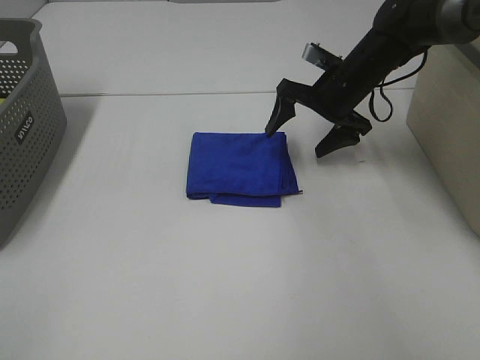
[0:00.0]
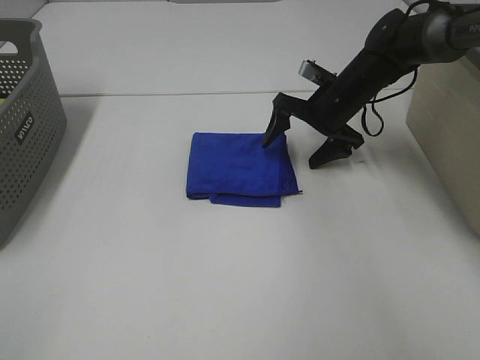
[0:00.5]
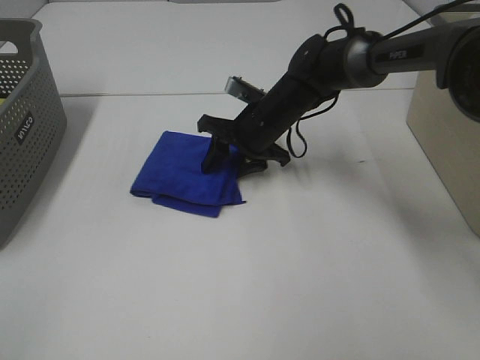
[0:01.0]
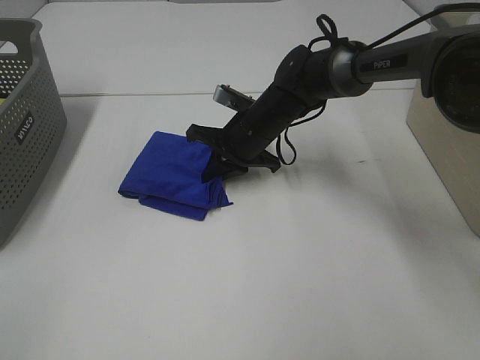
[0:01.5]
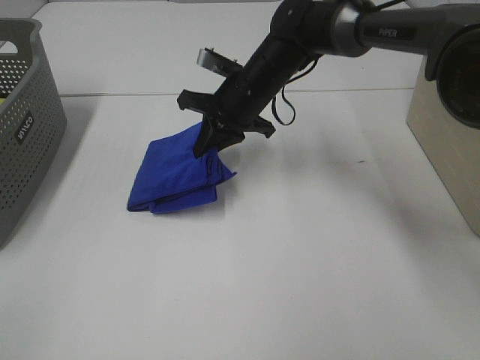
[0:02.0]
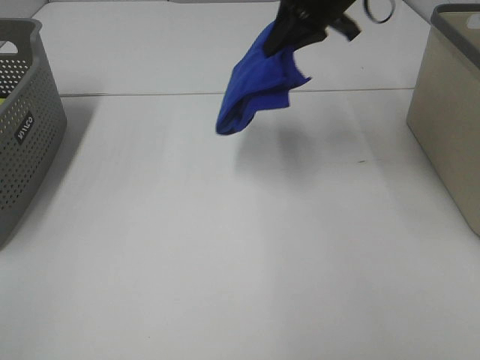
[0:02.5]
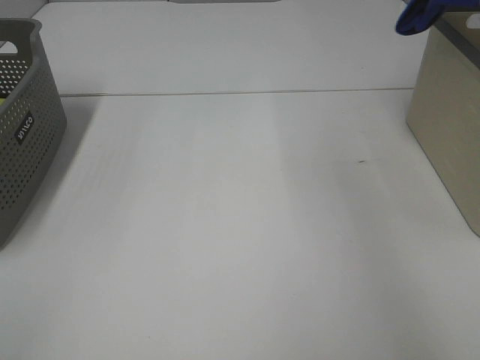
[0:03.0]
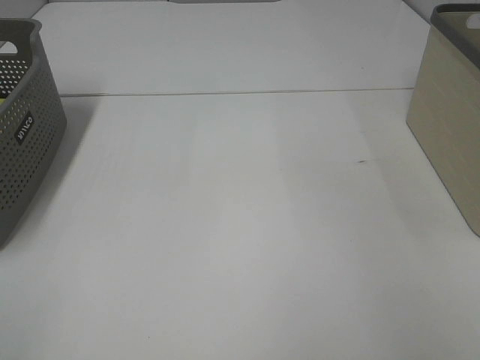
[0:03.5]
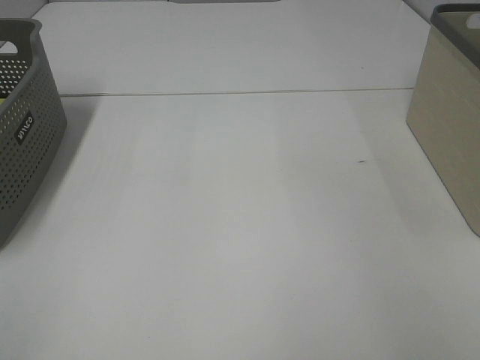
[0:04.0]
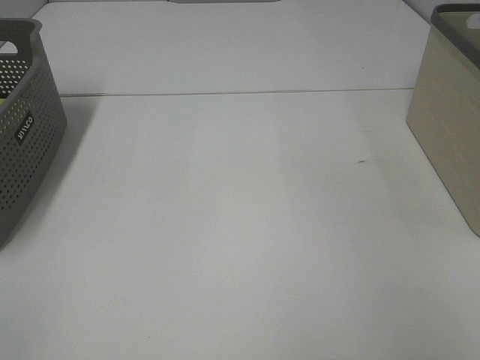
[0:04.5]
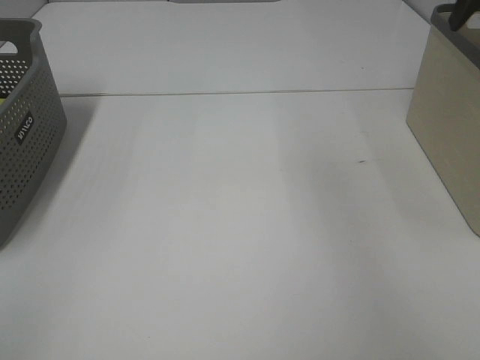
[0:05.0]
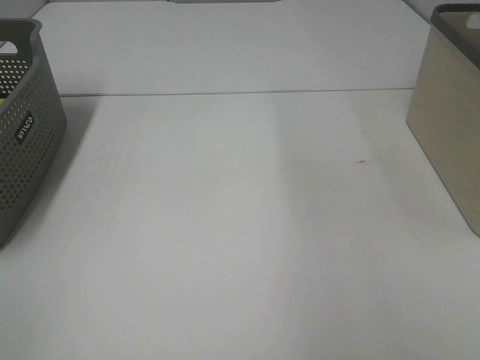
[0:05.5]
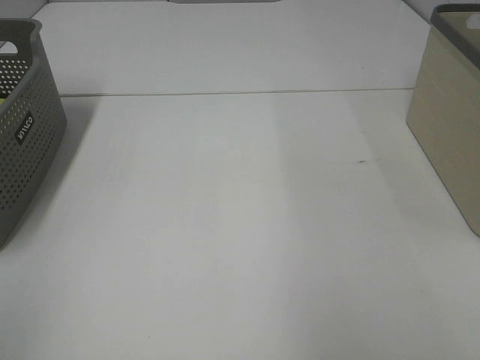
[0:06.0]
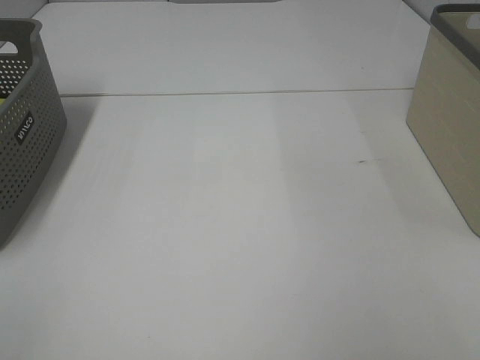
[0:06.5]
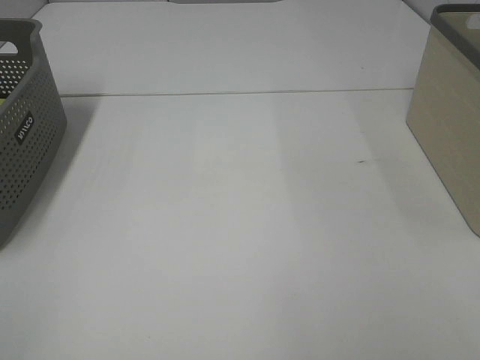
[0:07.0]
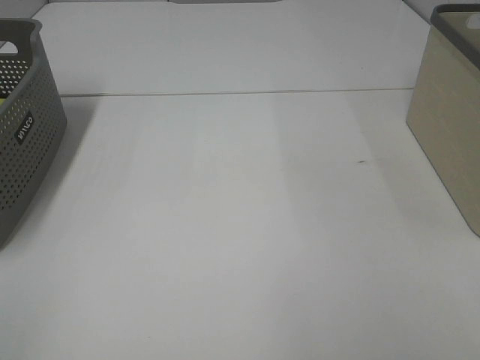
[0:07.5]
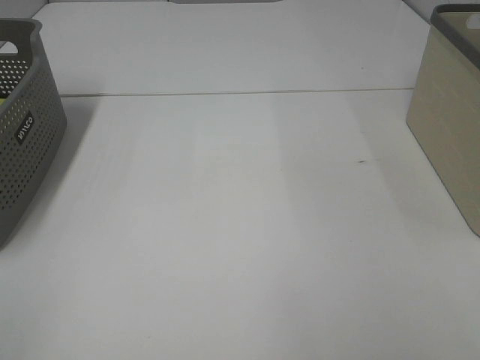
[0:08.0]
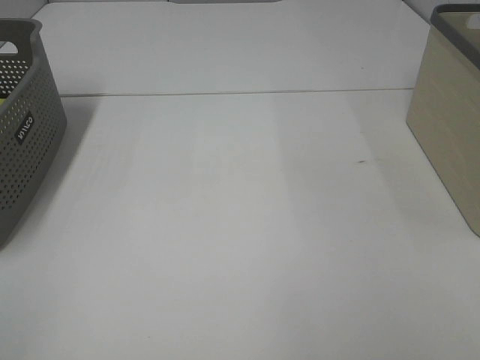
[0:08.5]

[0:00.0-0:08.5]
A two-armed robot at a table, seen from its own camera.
Step, 0:01.5 to 0:04.5: Right hand: place the blue towel in right basket.
0:00.0 to 0:02.0: The right gripper travels to the left by roughly 15 cm, and closes.
0:02.0 to 0:04.0: The right gripper moves to the right and upward, roughly 50 cm.

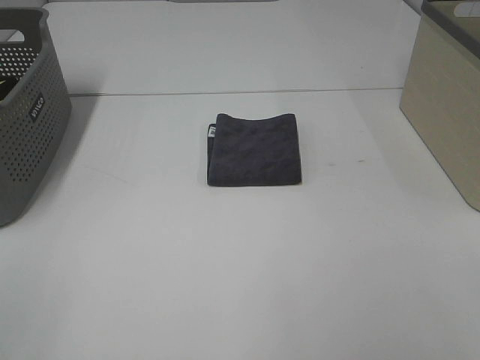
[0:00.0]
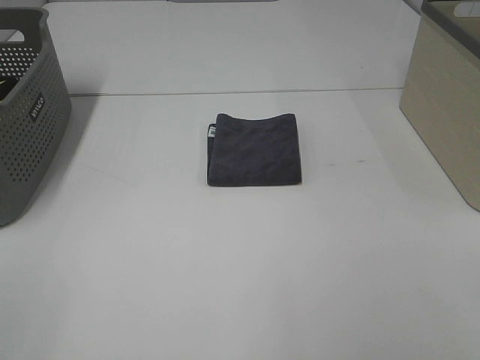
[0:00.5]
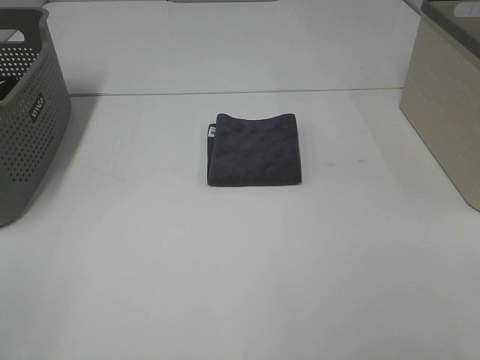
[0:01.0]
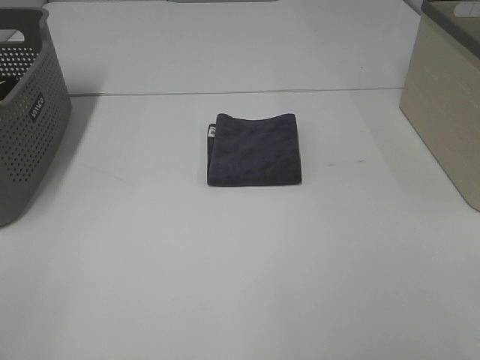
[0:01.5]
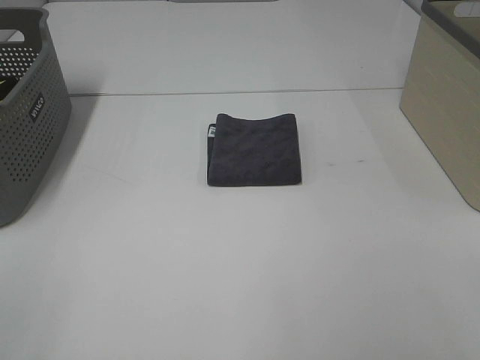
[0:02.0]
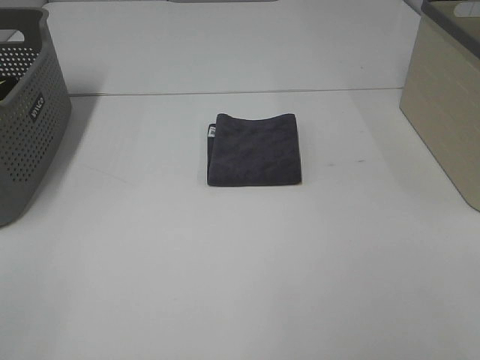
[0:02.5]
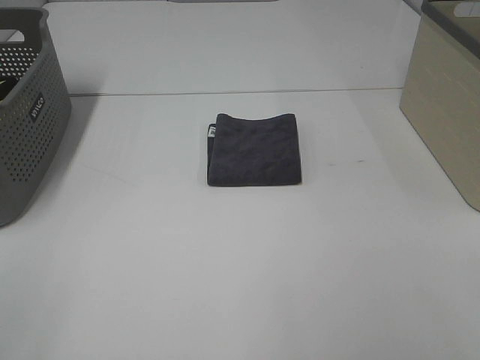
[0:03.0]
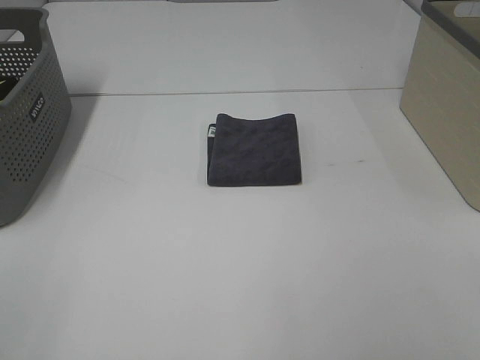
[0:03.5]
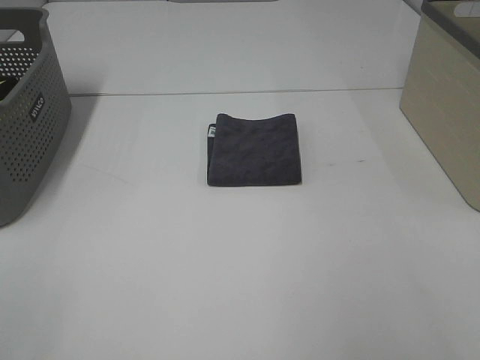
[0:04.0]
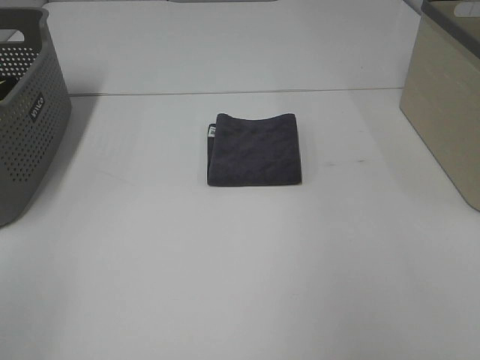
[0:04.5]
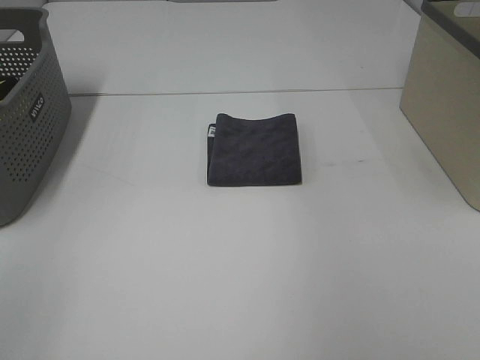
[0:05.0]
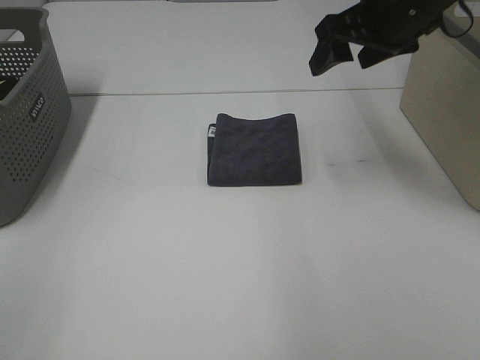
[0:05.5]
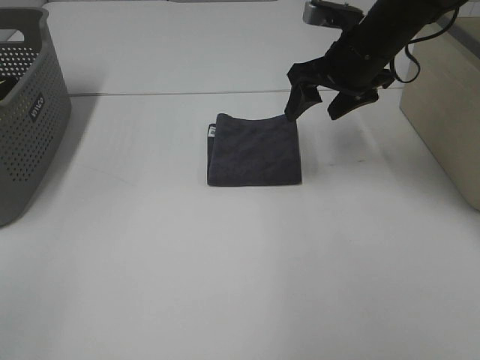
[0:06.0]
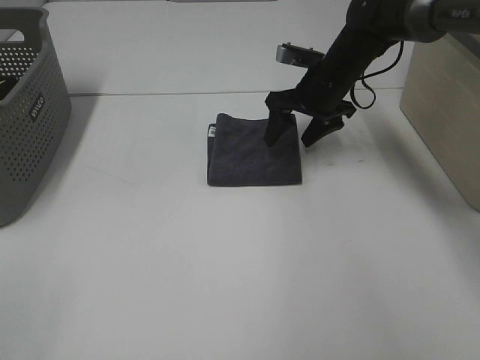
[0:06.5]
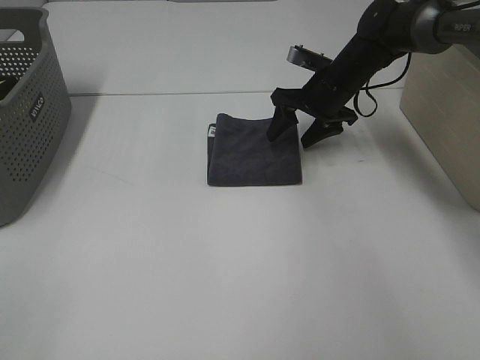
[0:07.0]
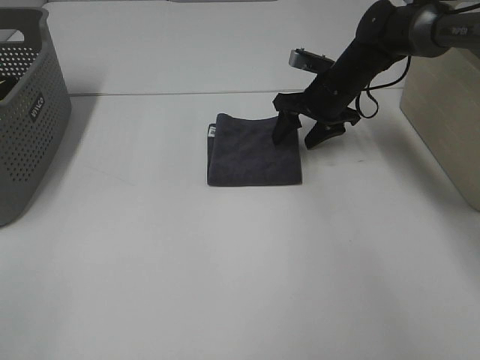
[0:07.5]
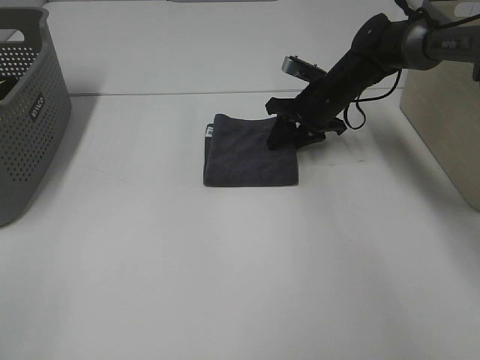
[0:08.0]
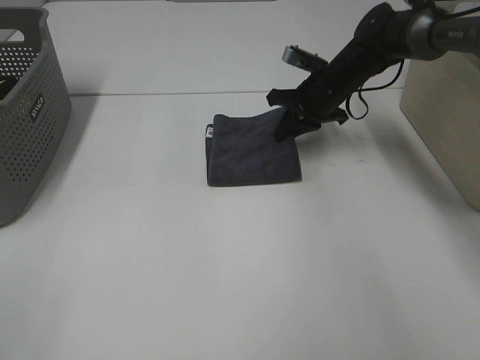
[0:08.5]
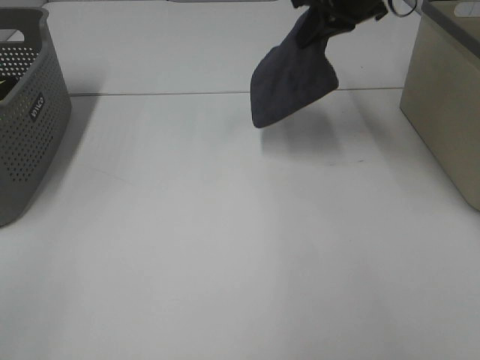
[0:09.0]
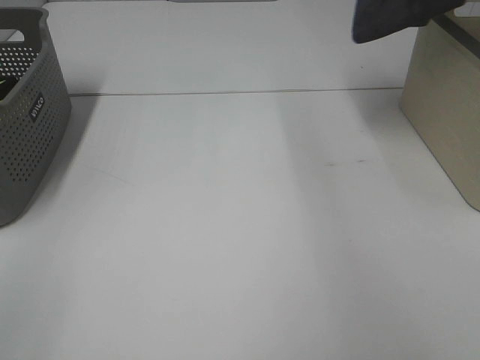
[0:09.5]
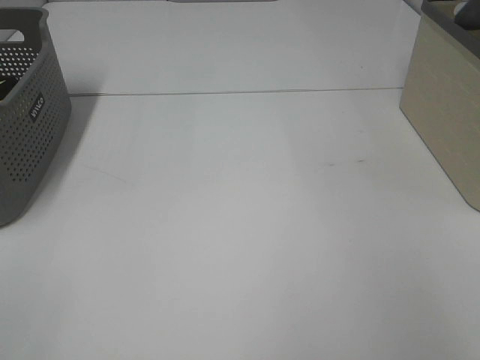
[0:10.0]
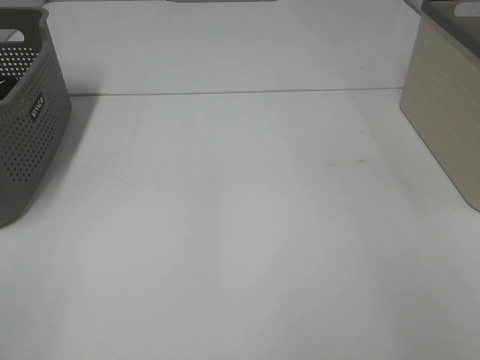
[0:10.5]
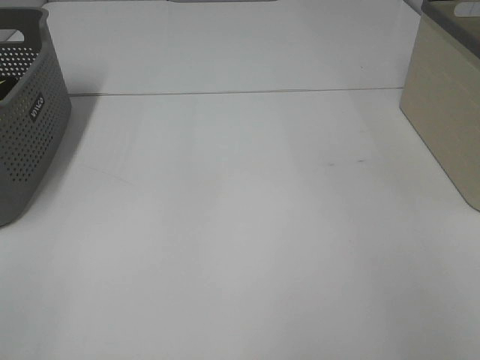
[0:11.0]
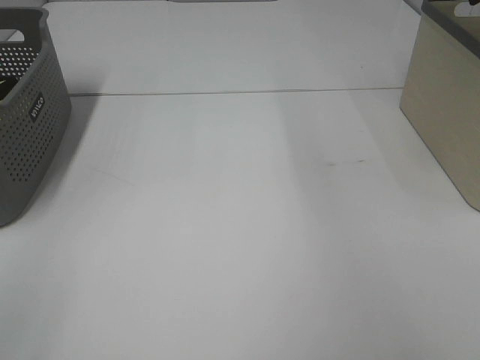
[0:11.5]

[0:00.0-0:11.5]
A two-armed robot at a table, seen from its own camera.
Step, 0:00.0 to 0:08.0: Right hand: grab the folded grey towel.
Step, 0:08.5 to 0:10.5: Right hand: place the grey towel in right basket.
0:00.0 to 0:02.0: The two grippers keep their place.
0:04.0 to 0:06.0: The right gripper shifts some 35 cm forward.
0:06.0 to 0:07.5: The right gripper heads downward and forward, covering some 10 cm.
0:07.5 to 0:09.5: The right gripper shifts roughly 30 cm upward and to the right, and closes its fingers.
0:09.5 to 0:11.5: The right gripper goes to the right and returns, roughly 15 cm each way, and opens its fingers.

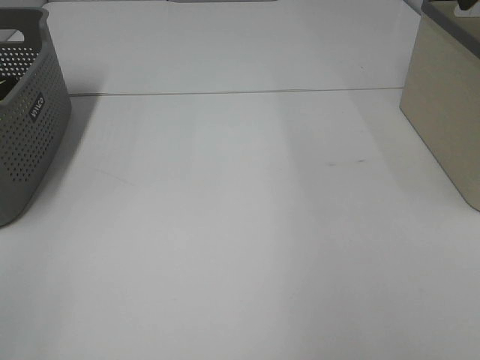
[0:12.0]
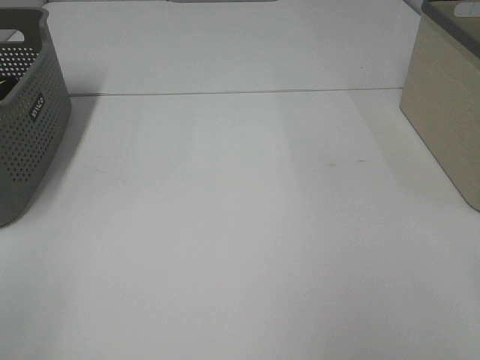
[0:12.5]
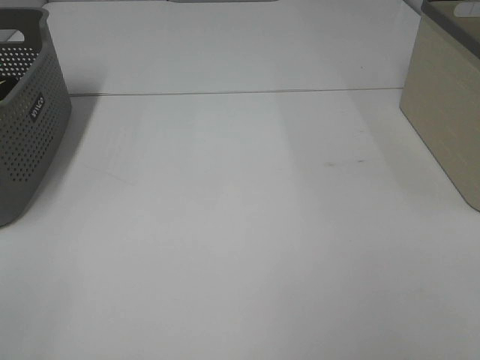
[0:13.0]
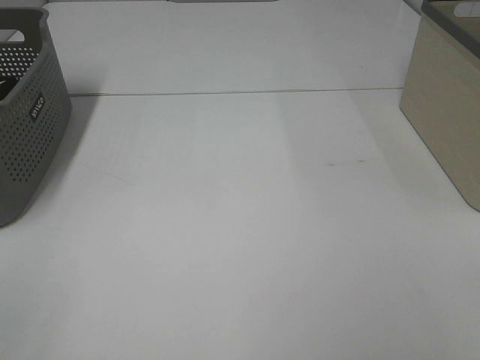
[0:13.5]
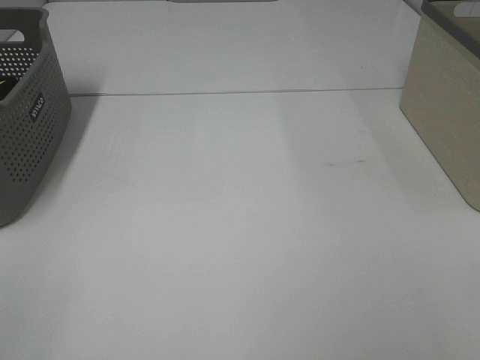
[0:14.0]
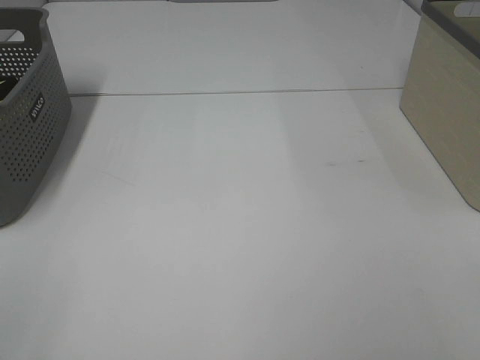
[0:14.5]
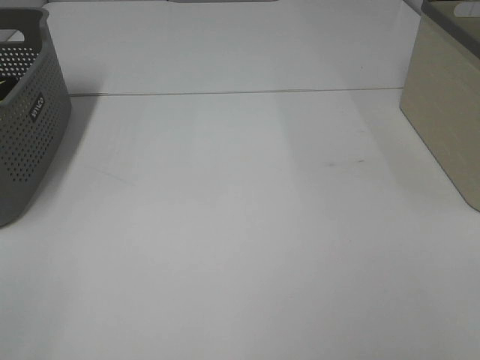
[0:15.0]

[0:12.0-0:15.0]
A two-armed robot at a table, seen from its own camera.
0:13.5 to 0:15.0: Both grippers stay put.

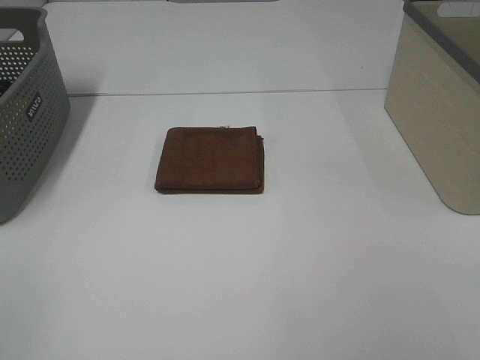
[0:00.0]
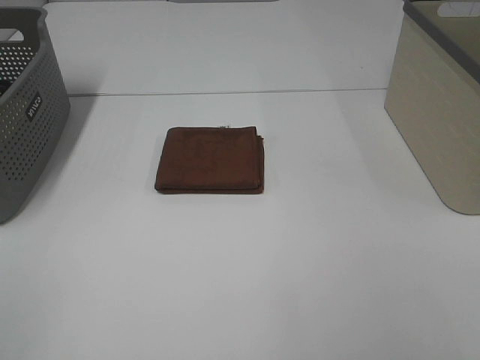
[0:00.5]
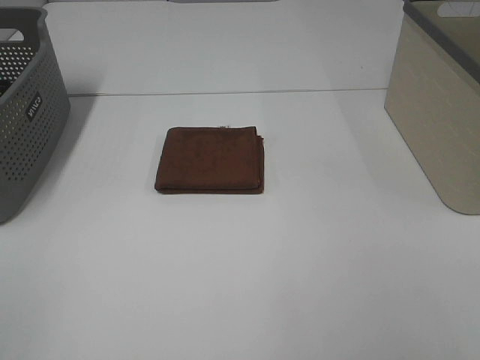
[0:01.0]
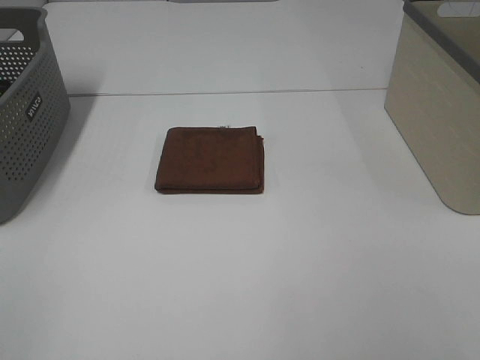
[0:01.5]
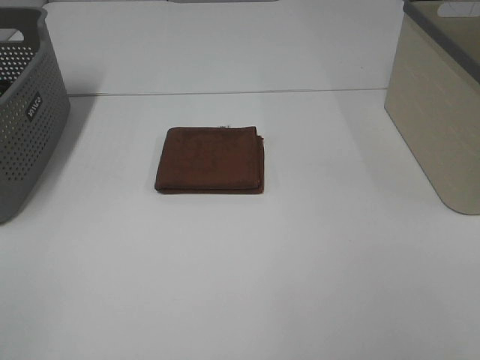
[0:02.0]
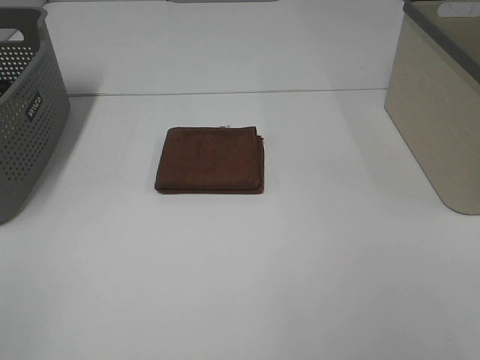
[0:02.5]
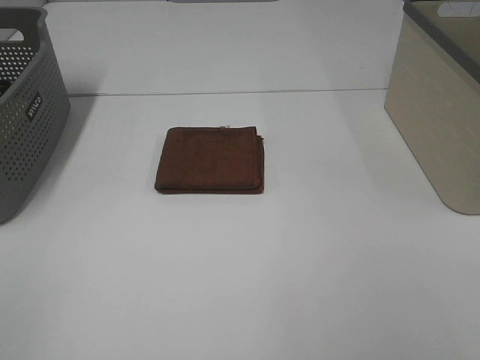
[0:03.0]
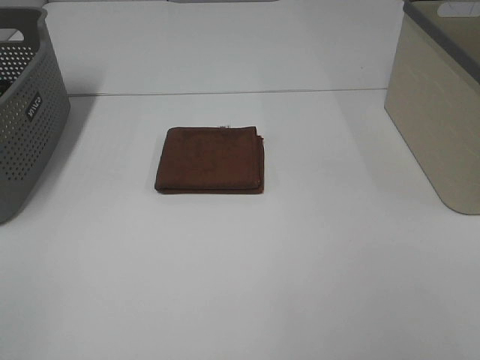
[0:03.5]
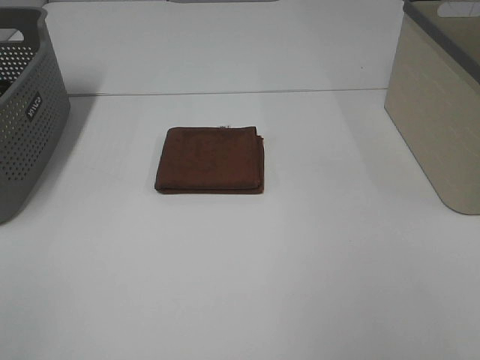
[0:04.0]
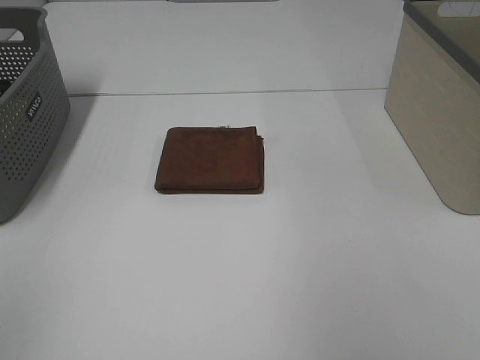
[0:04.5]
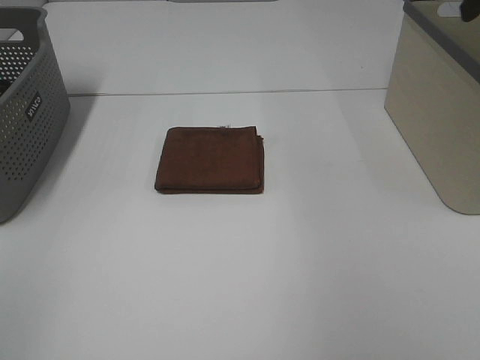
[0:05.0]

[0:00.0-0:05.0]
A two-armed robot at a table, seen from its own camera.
0:00.0 to 0:02.5: Both grippers stay about where they are.
